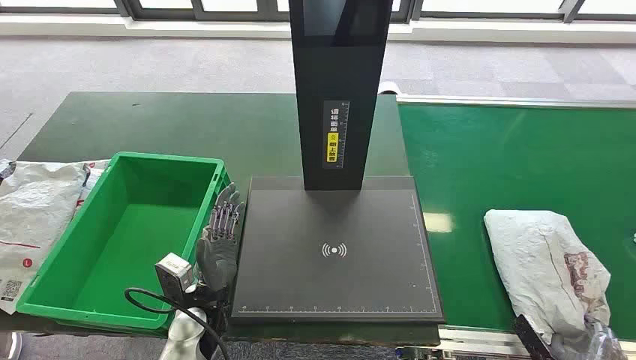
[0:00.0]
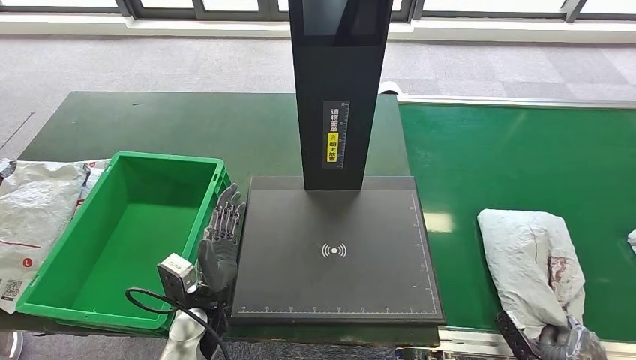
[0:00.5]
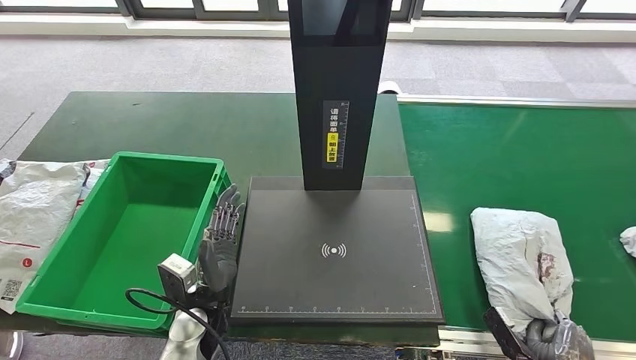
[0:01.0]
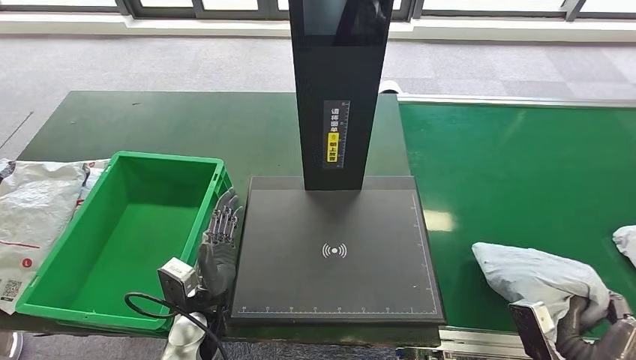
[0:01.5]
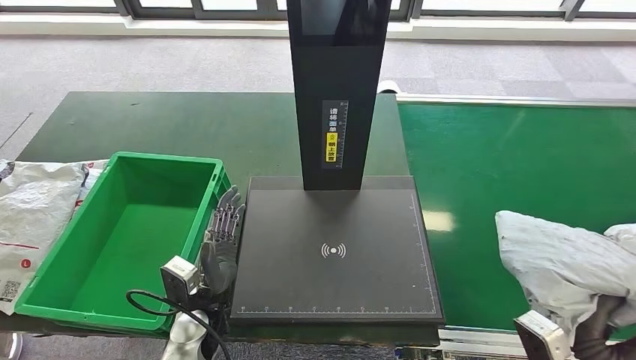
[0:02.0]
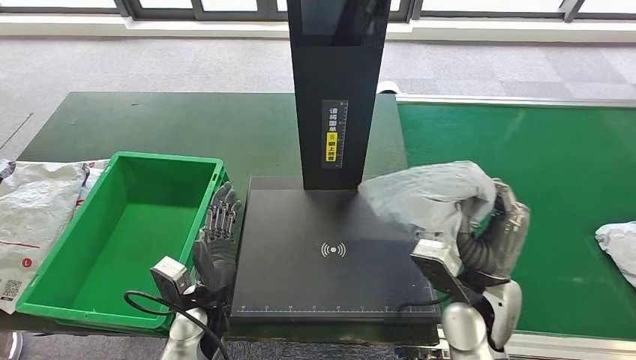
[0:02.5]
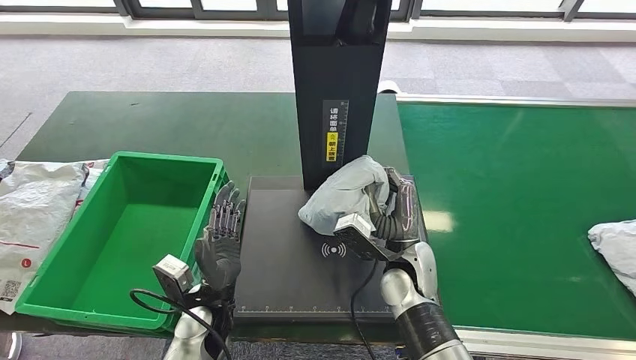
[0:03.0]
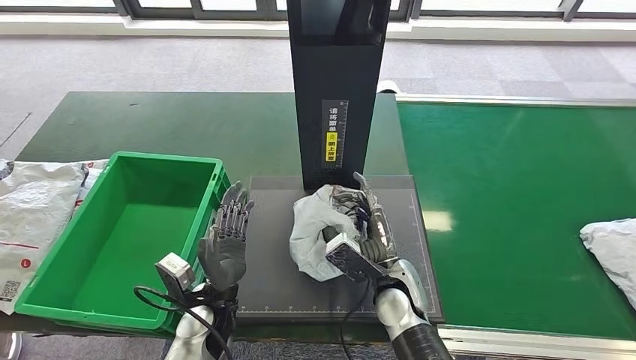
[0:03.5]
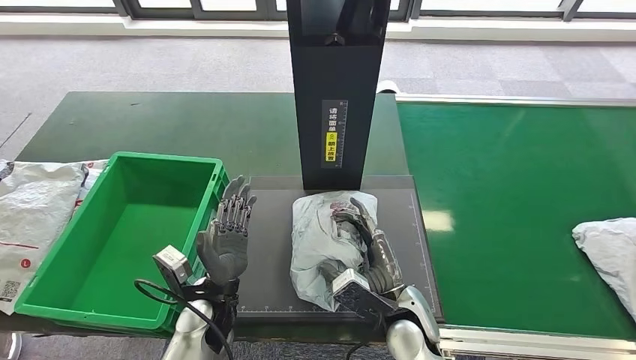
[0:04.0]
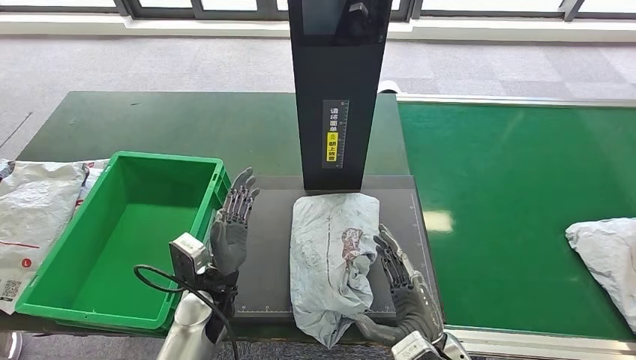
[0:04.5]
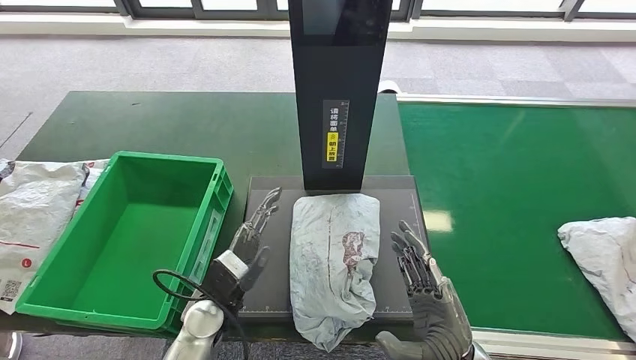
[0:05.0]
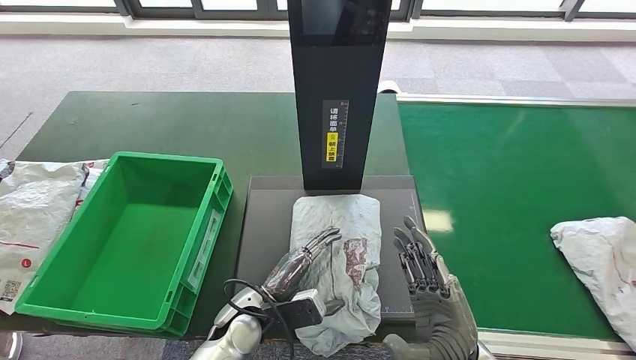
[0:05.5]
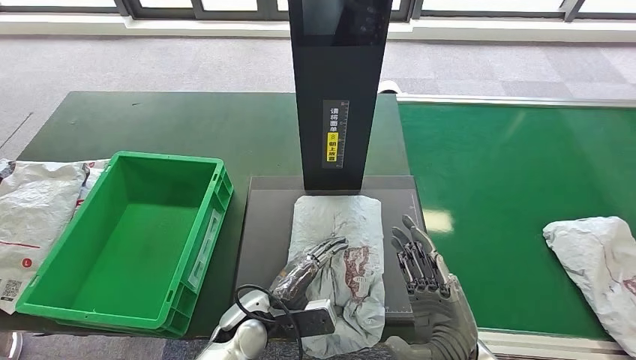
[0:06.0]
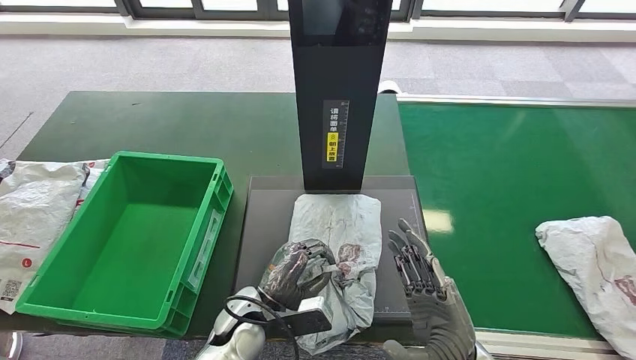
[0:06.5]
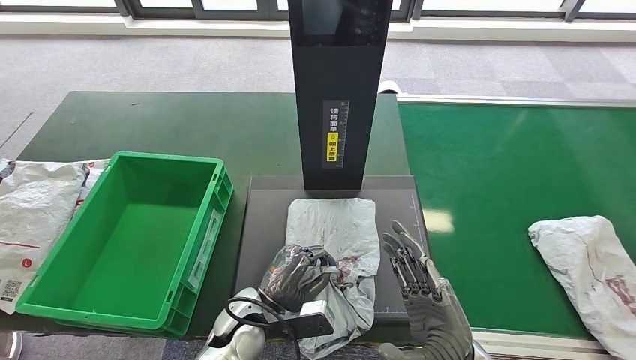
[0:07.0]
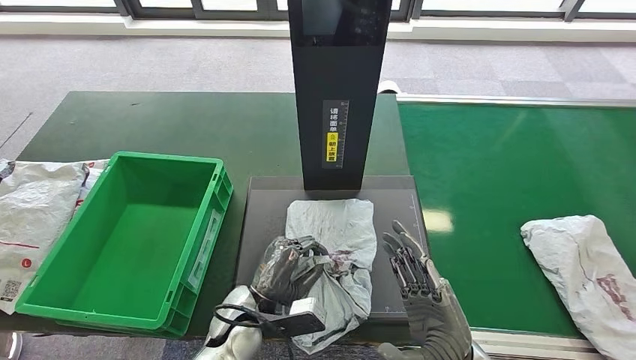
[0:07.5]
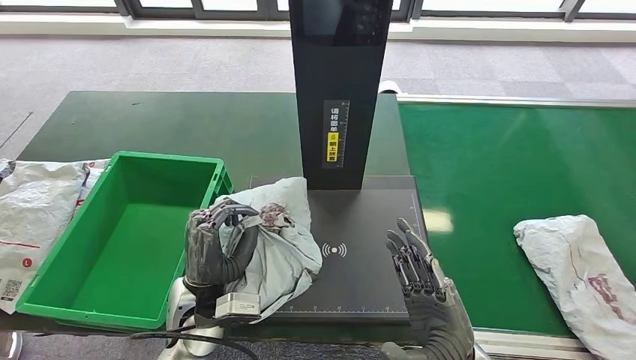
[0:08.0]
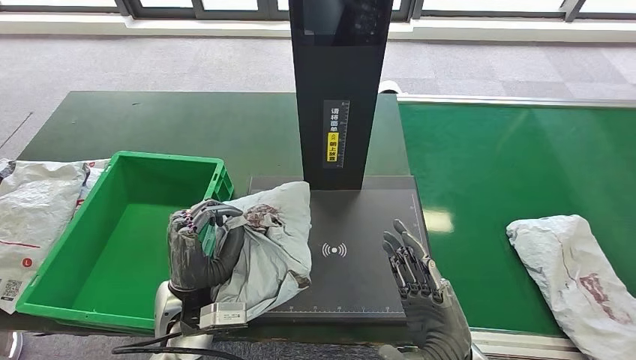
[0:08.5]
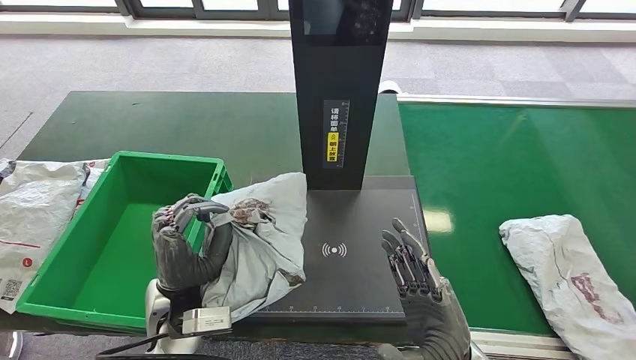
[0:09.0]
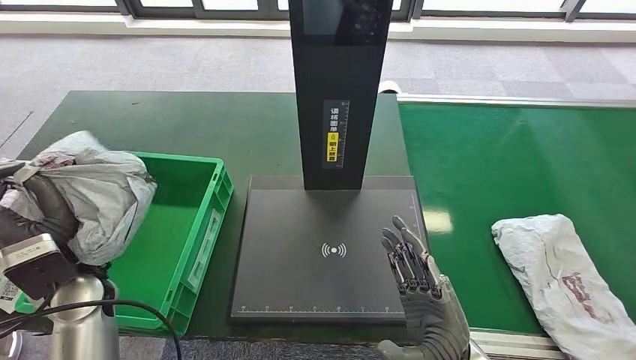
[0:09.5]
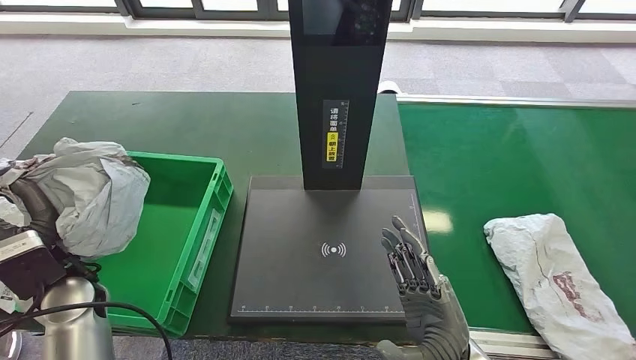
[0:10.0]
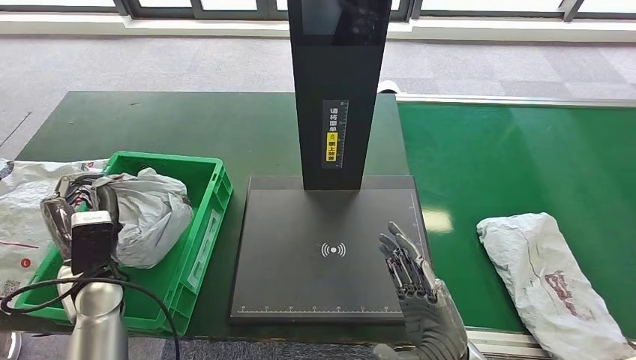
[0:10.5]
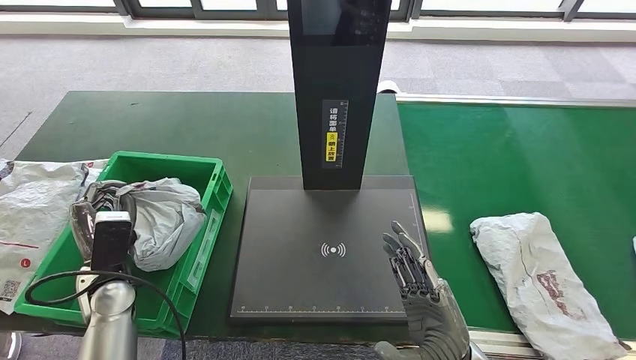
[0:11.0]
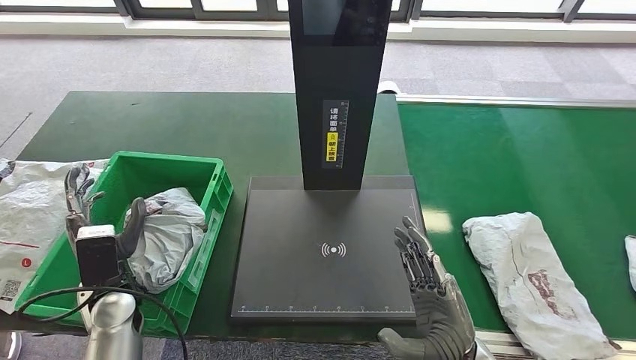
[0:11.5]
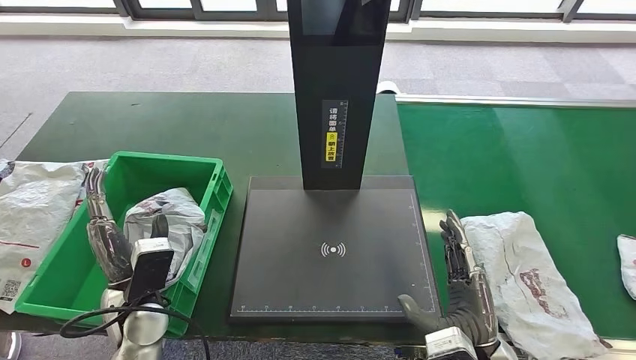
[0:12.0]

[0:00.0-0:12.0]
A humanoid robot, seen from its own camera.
Step, 0:00.0 to 0:02.5: Take the parcel off the conveyor belt.
Step, 0:03.0 to 0:05.0: Place the parcel onto the inbound machine.
Step, 0:05.5 to 0:09.5: Pick up the parcel from the inbound machine.
0:02.0 to 0:04.0: The right hand heads to the left and forward, covering about 25 cm.
0:04.0 to 0:06.0: The right hand moves backward, to the right and upward, some 10 cm, while the left hand shifts roughly 5 cm to the right.
0:06.0 to 0:08.0: The left hand shifts about 10 cm upward and to the left.

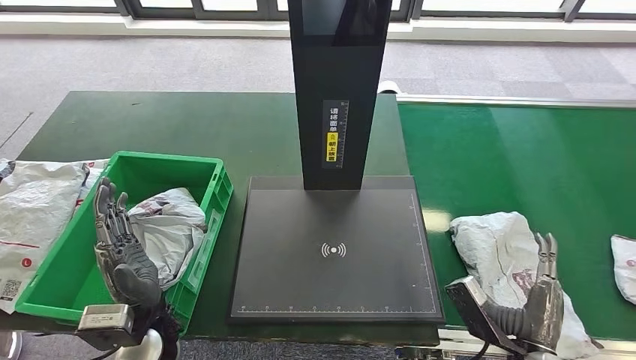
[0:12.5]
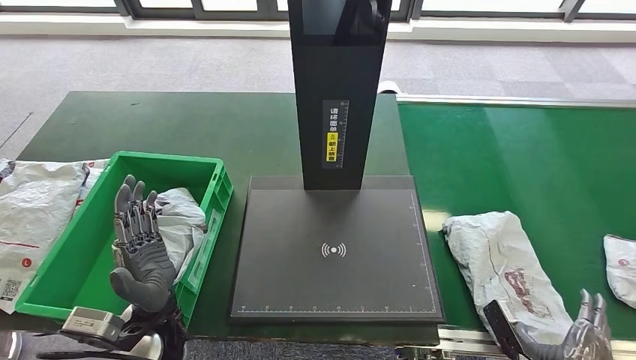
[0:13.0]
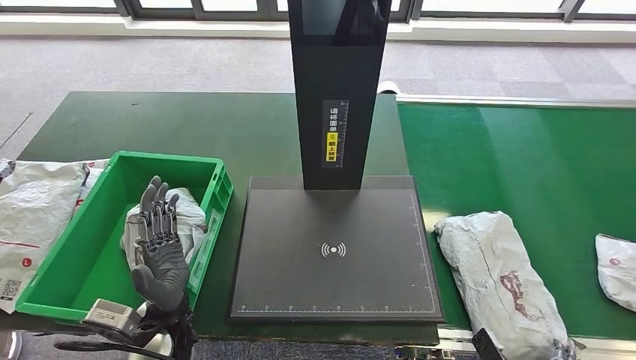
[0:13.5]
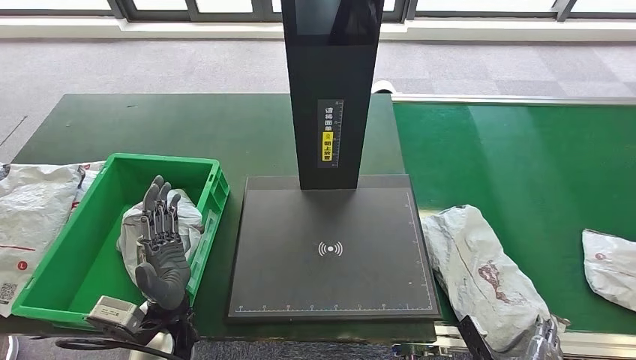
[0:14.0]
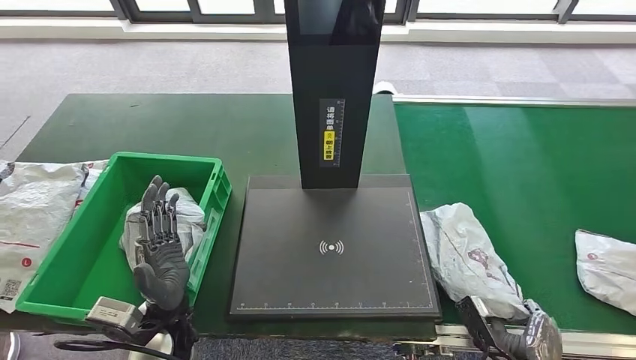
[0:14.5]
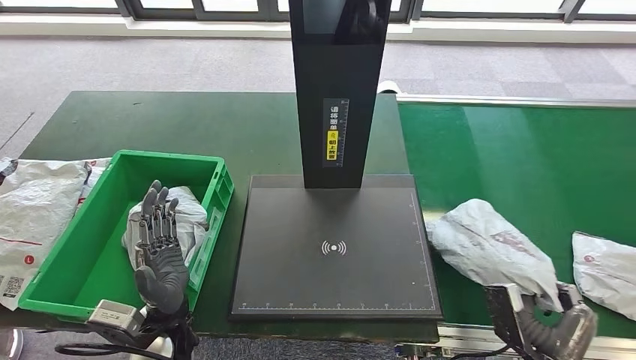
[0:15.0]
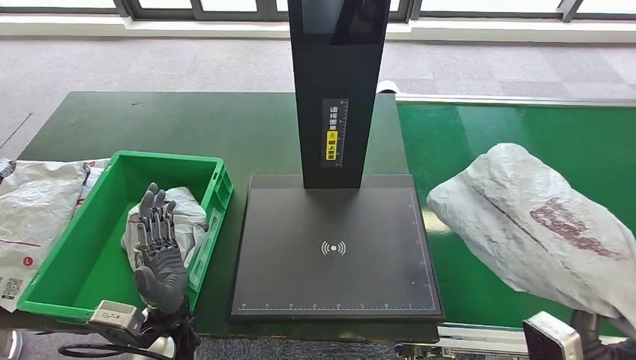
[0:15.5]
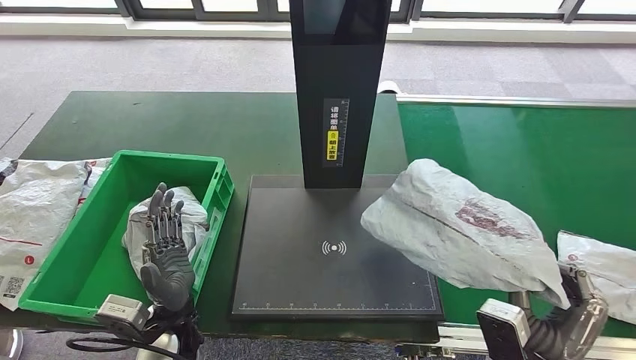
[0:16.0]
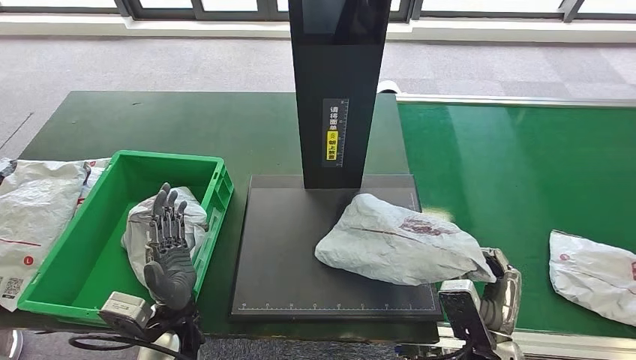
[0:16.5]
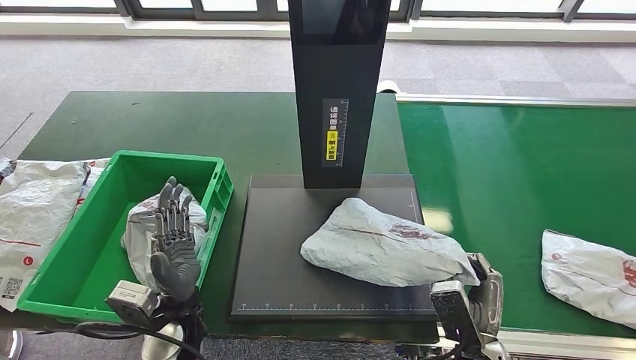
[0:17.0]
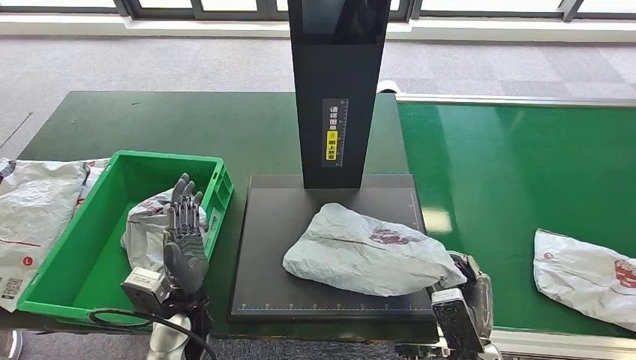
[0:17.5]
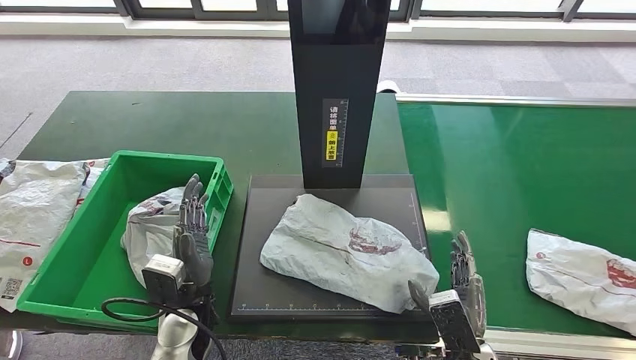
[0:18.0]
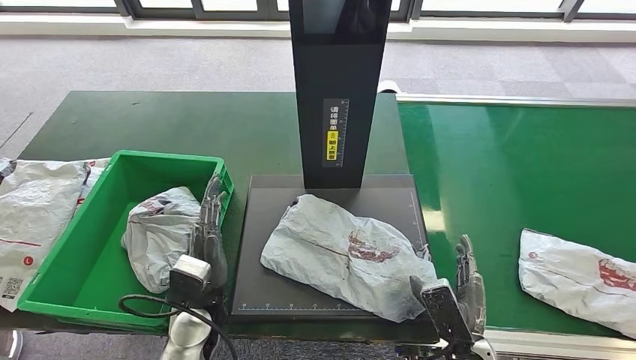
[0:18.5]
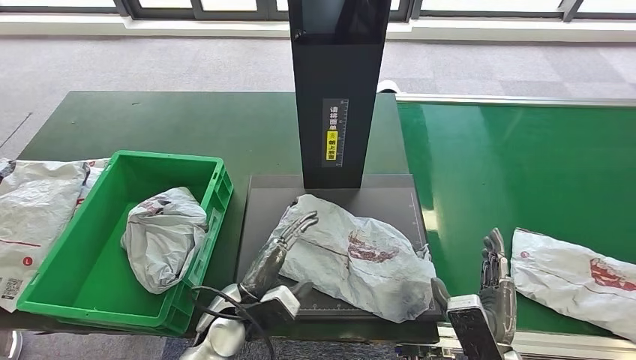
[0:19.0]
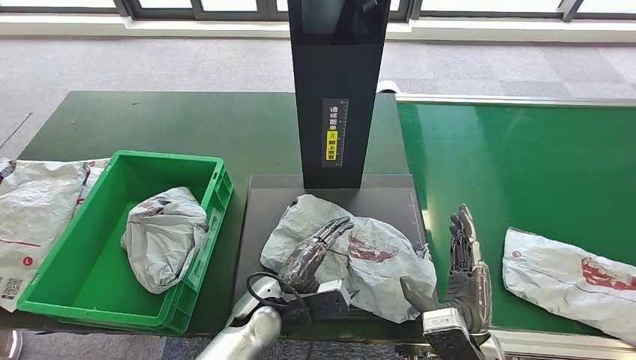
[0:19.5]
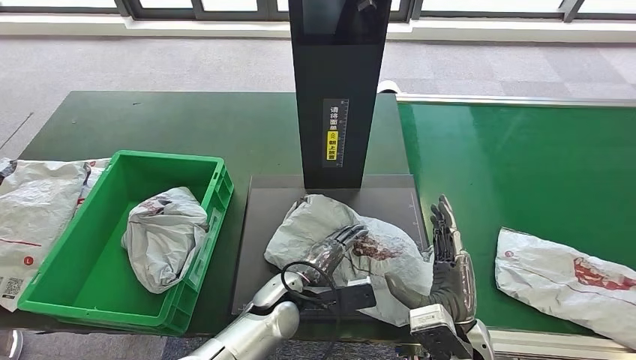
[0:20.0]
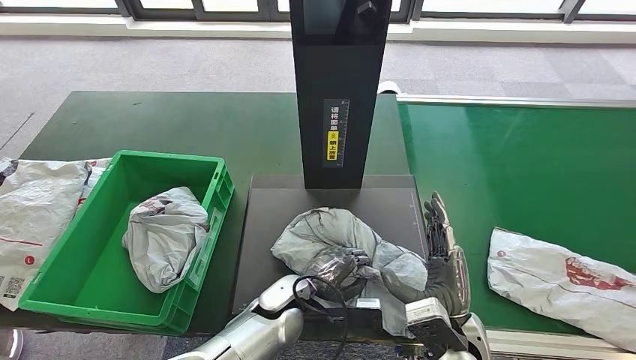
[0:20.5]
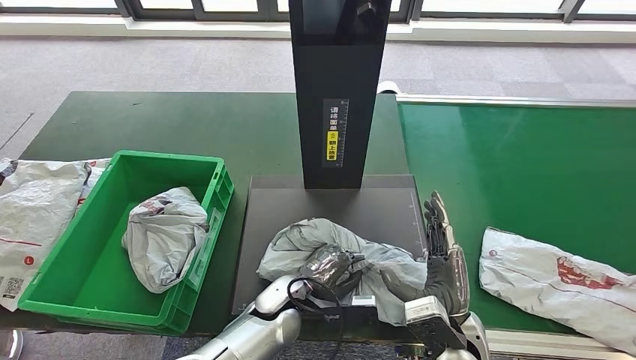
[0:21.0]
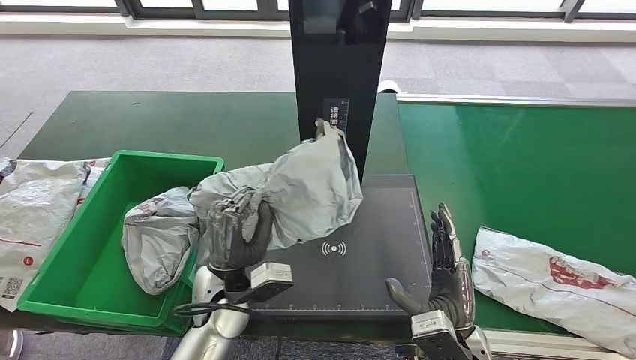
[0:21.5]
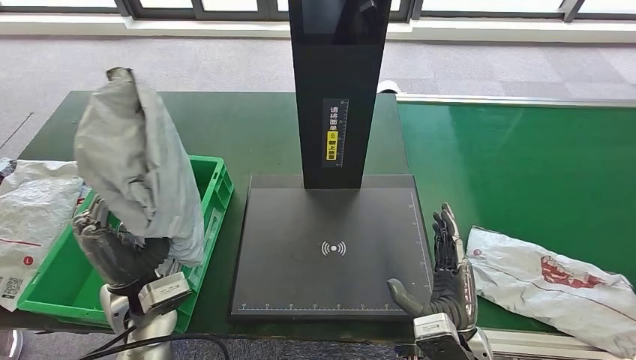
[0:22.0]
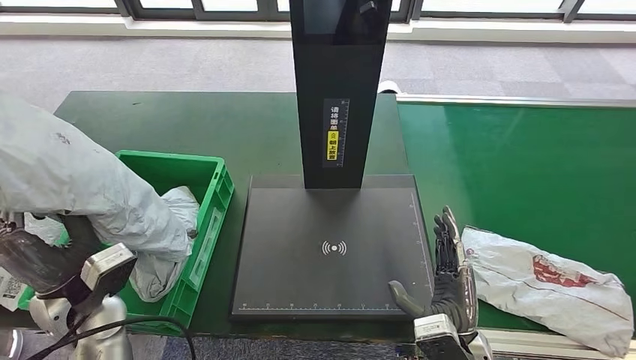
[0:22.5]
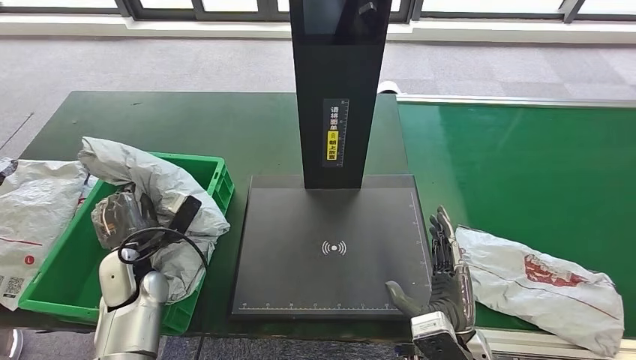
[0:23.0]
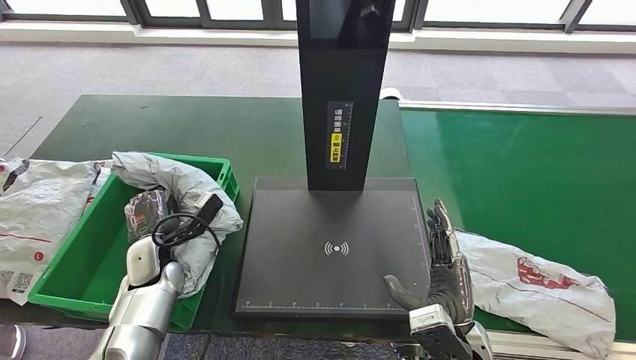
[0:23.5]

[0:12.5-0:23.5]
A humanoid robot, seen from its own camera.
Step, 0:13.5 to 0:16.0: Pick up the parcel from the conveyor belt.
Step, 0:17.0 to 0:19.0: Place the parcel onto the inbound machine.
Step, 0:19.5 to 0:22.5: Pick up the parcel from the inbound machine.
0:18.0 to 0:20.0: The right hand travels upward by about 5 cm. The left hand travels to the right by approximately 15 cm.
